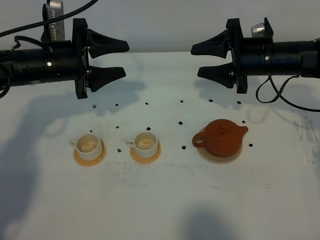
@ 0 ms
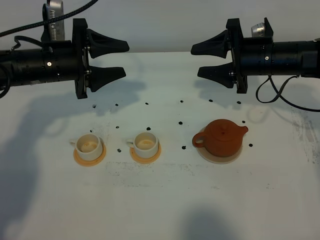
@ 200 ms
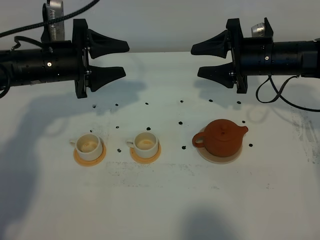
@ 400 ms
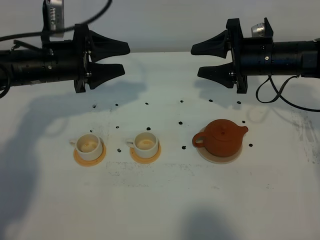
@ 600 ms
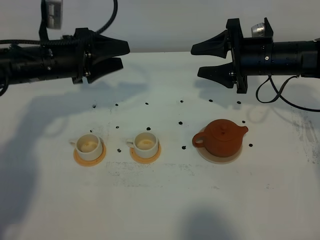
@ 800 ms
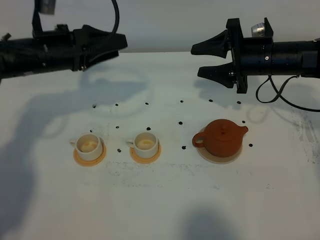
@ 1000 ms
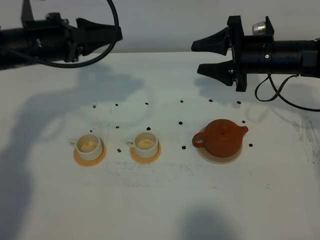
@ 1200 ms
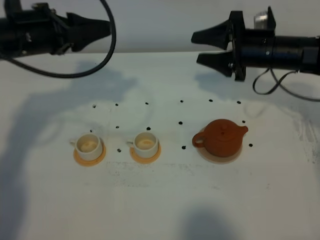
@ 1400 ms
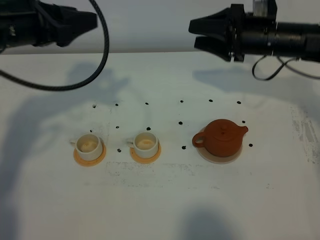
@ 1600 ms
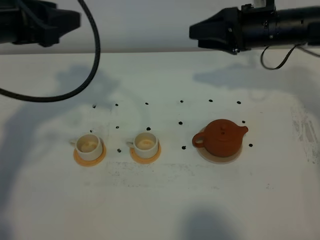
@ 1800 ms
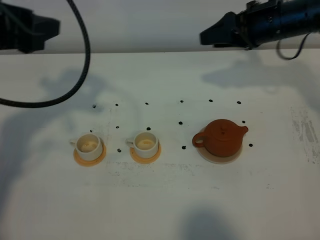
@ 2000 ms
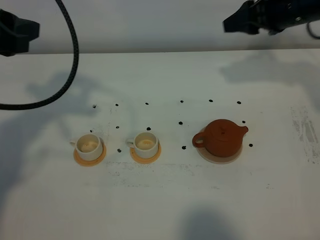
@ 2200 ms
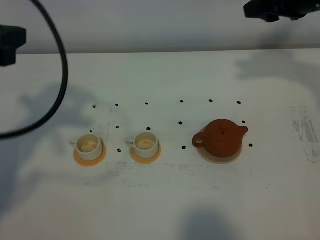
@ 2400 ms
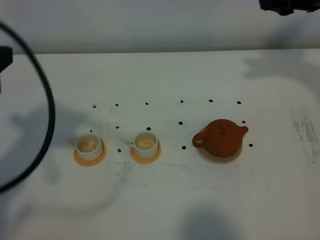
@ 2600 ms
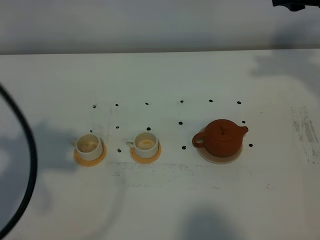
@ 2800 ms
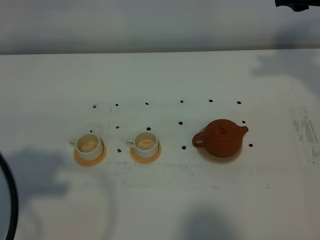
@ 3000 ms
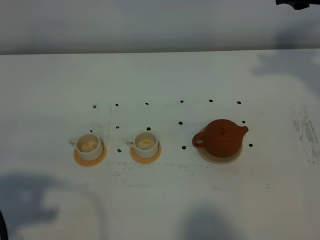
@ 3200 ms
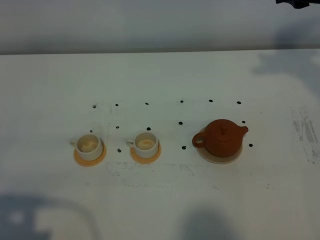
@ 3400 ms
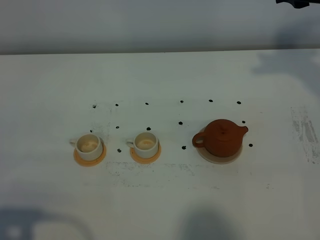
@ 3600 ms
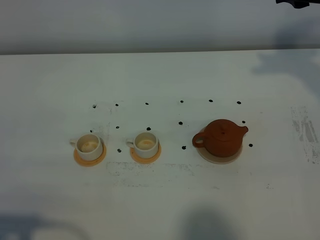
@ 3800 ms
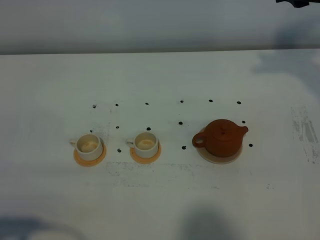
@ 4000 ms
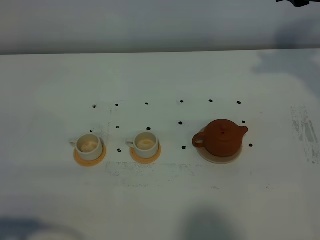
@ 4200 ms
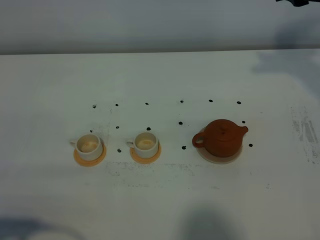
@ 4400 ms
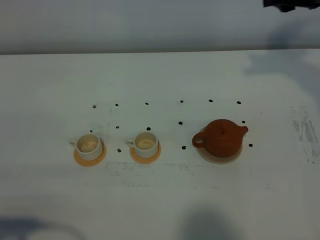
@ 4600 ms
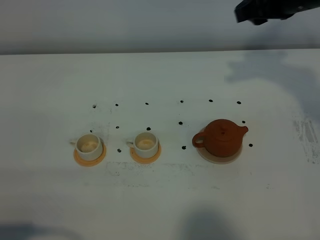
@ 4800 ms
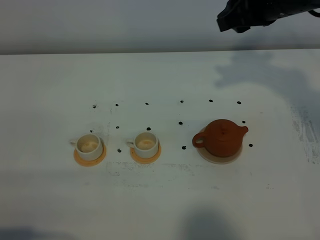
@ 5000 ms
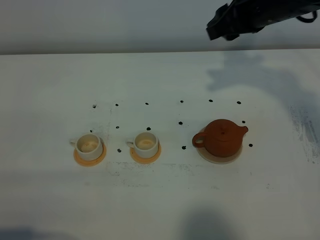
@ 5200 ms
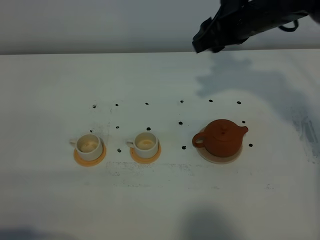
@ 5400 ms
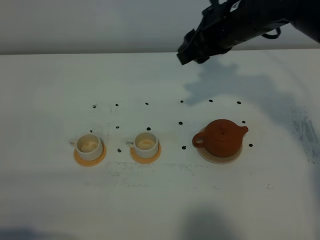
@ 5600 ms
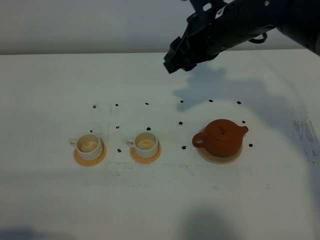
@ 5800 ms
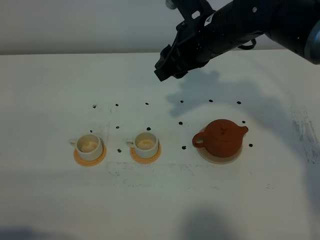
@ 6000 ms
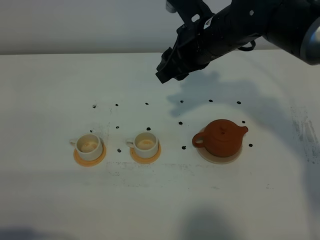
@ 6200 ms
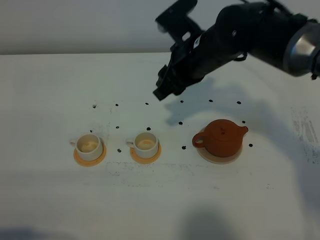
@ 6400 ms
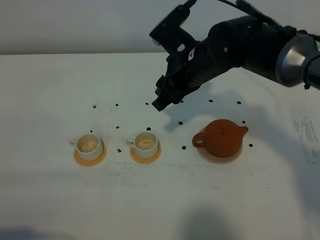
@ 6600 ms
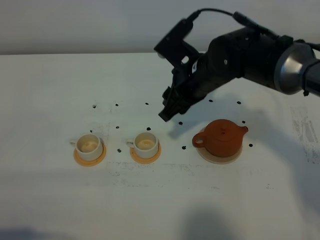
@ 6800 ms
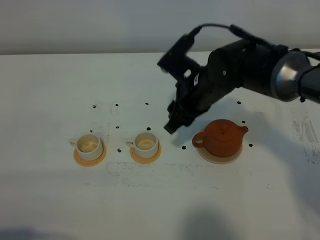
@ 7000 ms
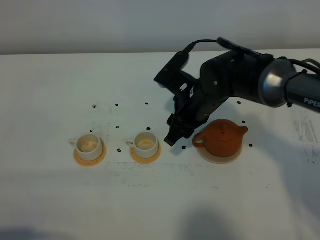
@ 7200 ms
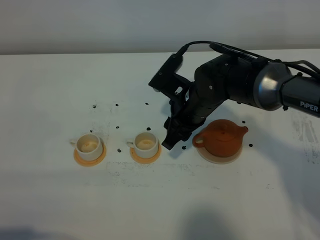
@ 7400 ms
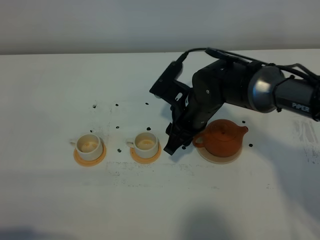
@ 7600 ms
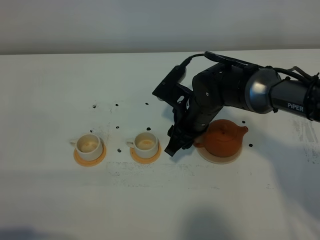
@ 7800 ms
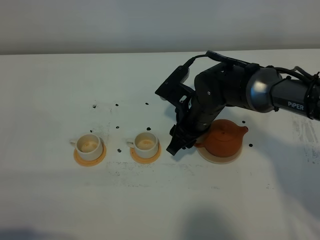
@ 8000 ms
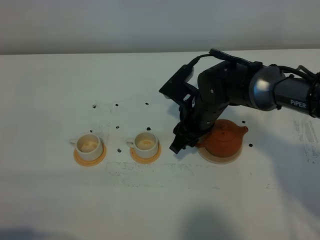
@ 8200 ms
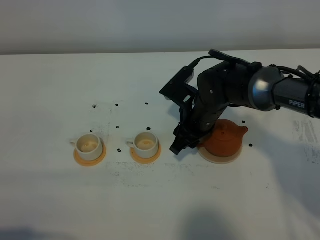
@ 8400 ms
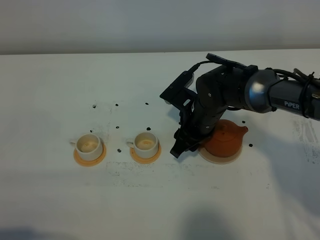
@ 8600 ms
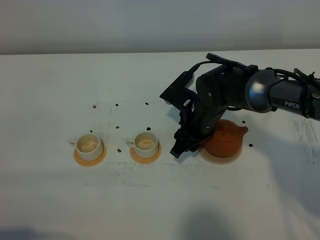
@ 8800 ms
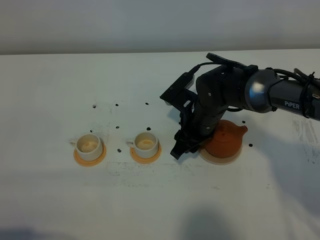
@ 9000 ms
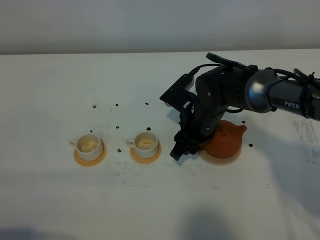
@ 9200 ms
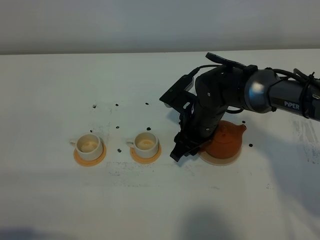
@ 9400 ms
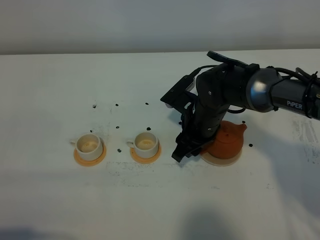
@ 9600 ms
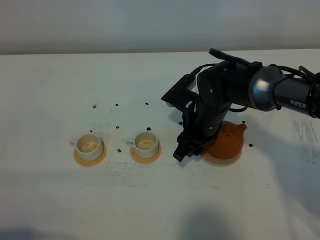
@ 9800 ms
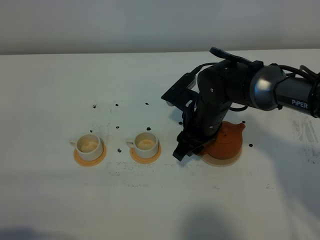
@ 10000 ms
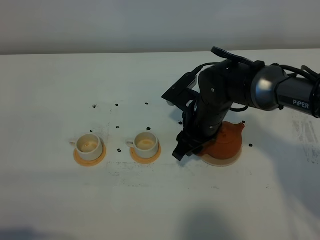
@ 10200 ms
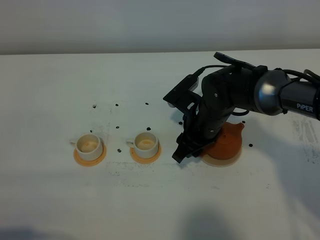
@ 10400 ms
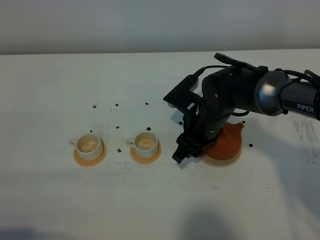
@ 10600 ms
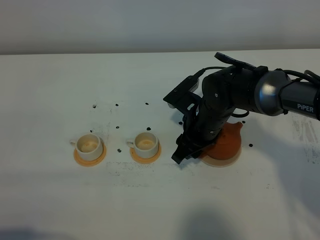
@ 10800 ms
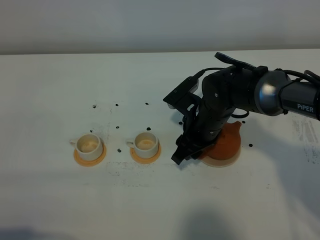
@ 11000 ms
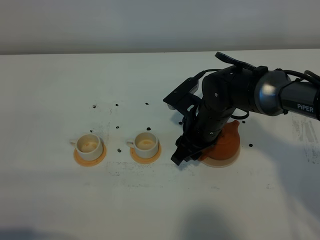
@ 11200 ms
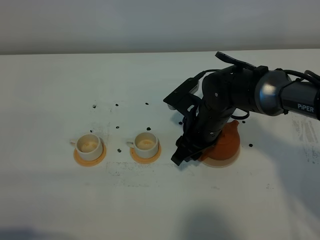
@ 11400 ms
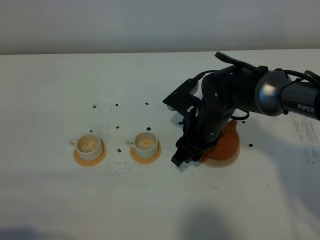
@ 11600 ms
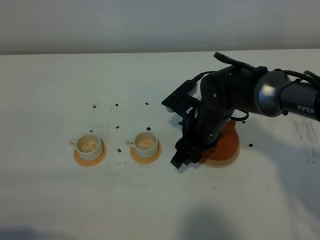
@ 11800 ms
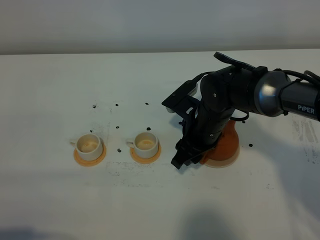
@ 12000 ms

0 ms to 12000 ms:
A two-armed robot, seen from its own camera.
Task of the whole recording: grasp the brown teapot and pour the tea into the two white teacups one by one, put the brown teapot back in its original place.
0 ms to 1600 ms: The left gripper shifts roughly 10 cm upward.
1600 ms to 3000 ms: The left gripper moves backward, roughly 25 cm. Meanwhile the right gripper shifts about 15 cm upward and to the right.
3000 ms to 4400 ms: The left gripper shifts roughly 15 cm downward and backward.
4400 ms to 6000 ms: The right gripper travels to the left and downward by roughly 20 cm.
6000 ms to 7600 ms: The right gripper moves downward, some 15 cm.
7600 ms to 10400 ms: The grippers make only small movements.
10400 ms to 12000 ms: The two grippers keep their place.

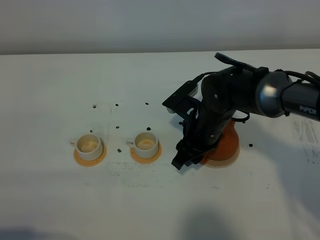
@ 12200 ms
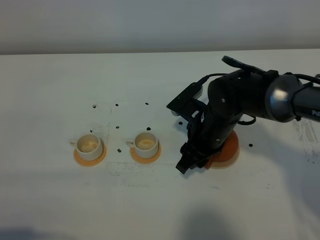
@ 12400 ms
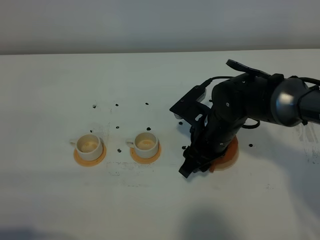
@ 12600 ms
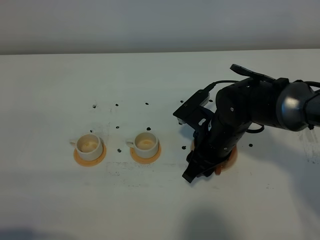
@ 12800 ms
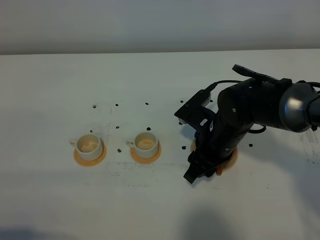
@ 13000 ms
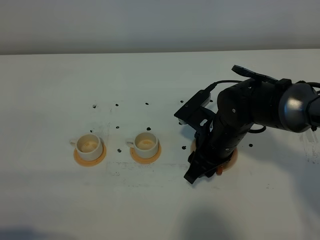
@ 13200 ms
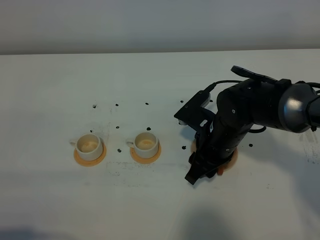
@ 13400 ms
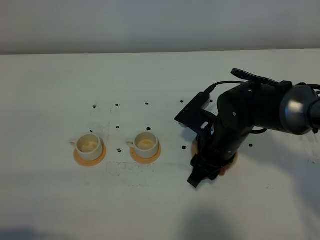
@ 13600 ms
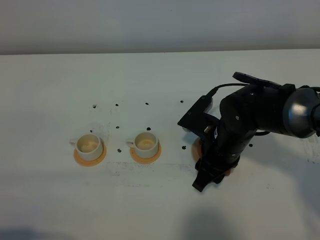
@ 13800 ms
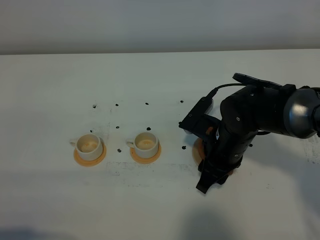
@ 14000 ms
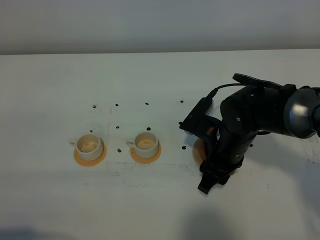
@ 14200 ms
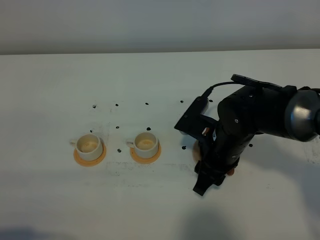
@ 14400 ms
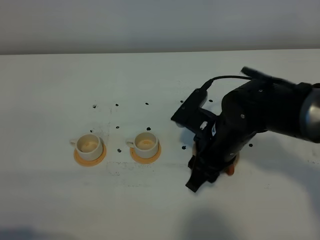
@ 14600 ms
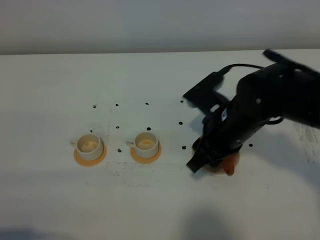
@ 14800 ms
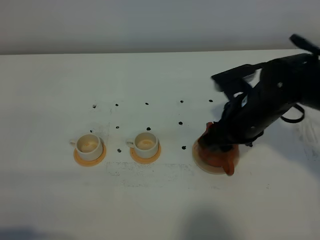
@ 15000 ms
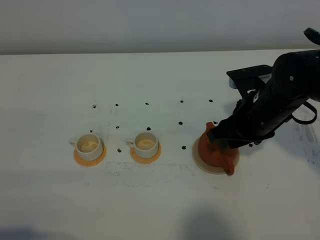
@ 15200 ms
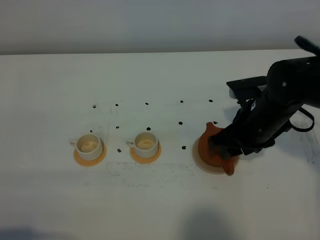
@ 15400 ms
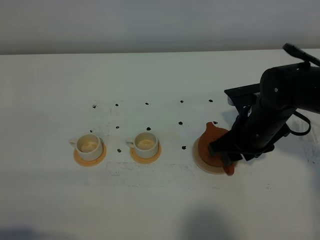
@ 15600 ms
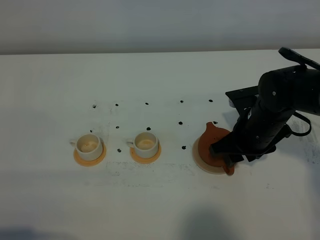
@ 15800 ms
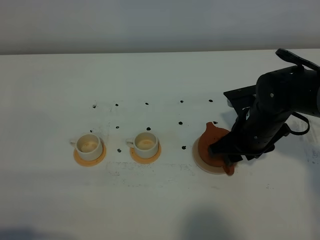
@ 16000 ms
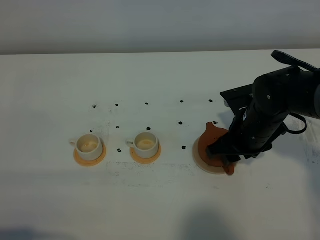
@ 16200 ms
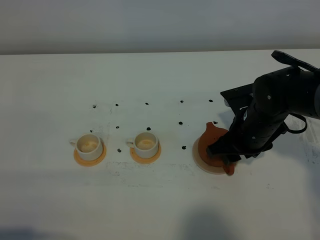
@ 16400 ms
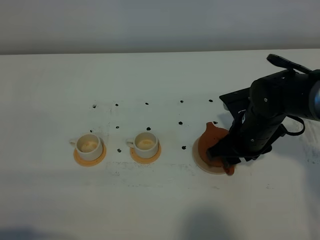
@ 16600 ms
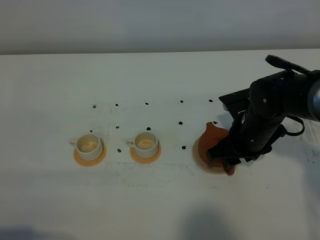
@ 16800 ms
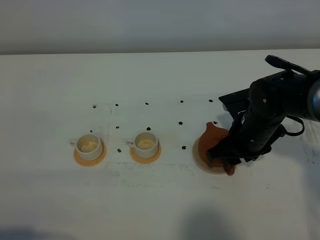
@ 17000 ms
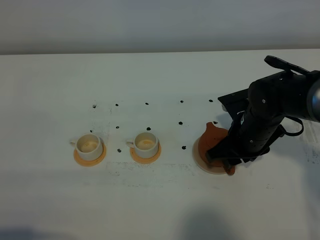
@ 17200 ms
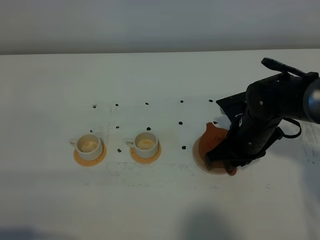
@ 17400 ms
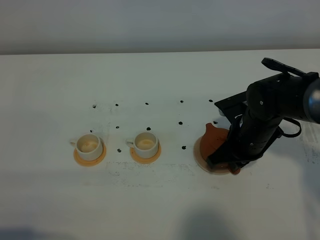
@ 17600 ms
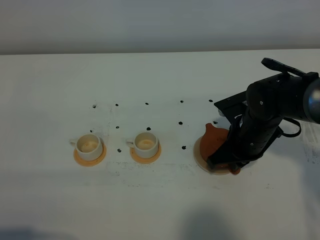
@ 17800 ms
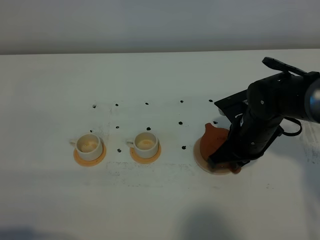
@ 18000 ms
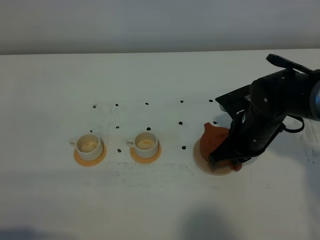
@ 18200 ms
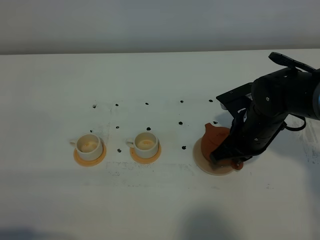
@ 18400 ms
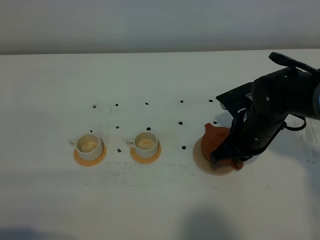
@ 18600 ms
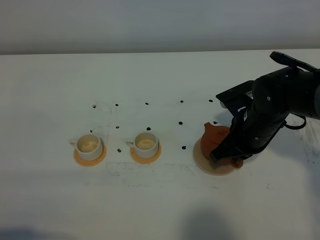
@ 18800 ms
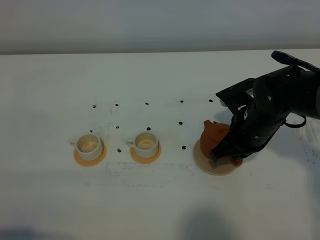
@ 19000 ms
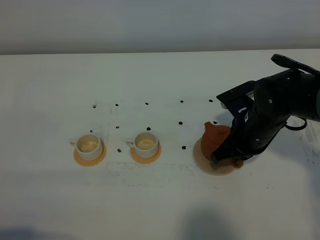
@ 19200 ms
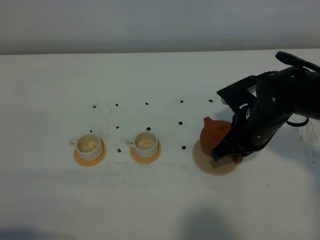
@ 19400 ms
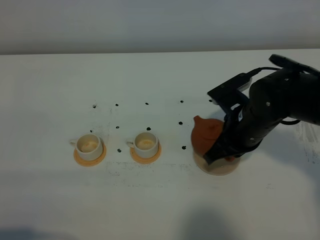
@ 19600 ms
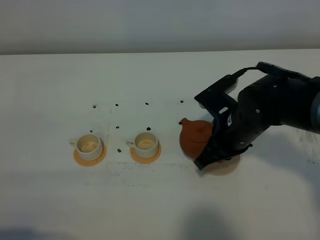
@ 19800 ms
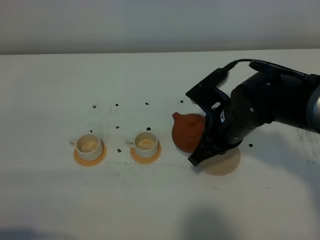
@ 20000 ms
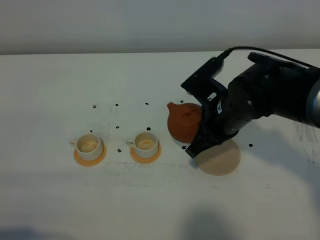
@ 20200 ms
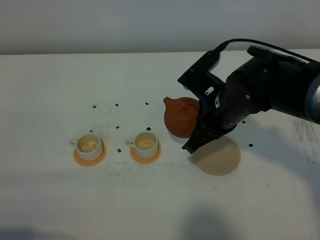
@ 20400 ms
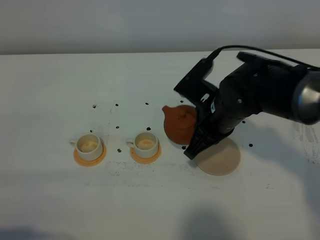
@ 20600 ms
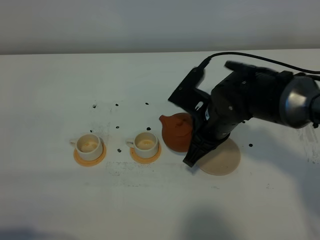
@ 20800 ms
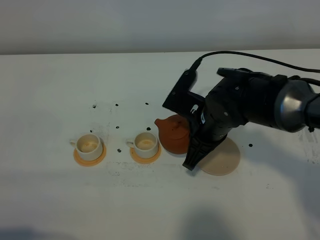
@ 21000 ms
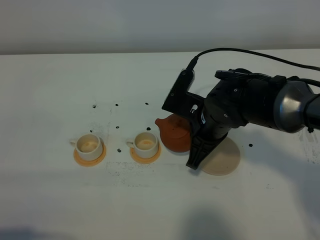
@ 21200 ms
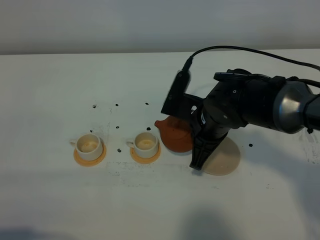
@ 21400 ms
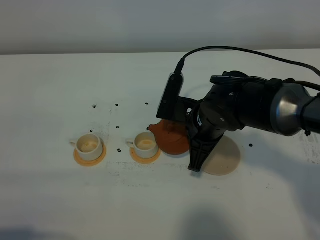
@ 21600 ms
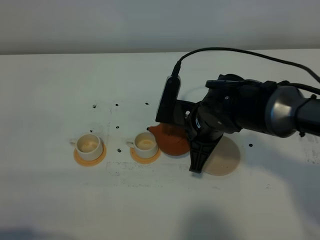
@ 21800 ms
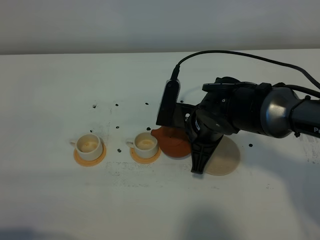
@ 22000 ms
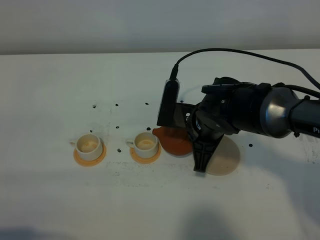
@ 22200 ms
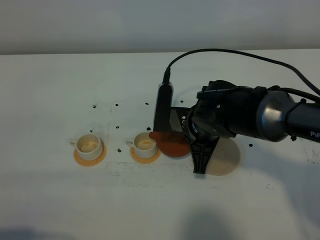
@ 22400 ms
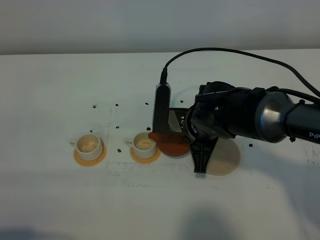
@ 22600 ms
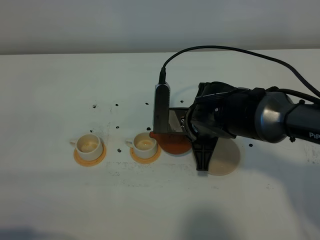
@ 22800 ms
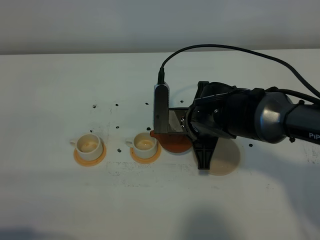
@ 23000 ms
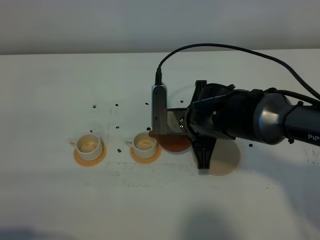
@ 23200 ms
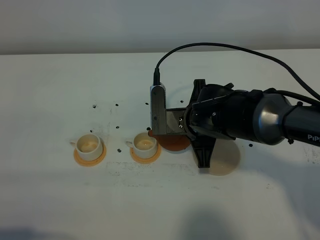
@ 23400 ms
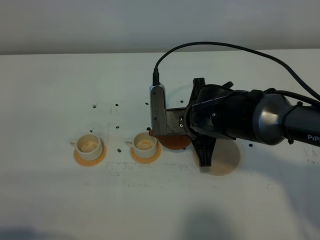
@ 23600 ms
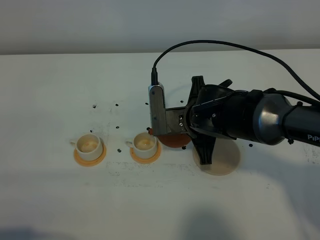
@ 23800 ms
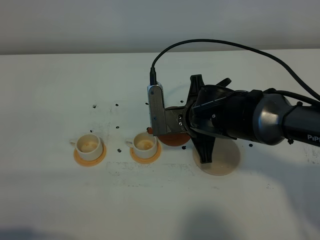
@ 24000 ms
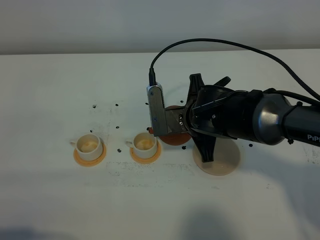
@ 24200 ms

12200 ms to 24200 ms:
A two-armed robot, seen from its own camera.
Task of the whole recording: grasp the brown teapot and pour the tea into the two white teacups one by one, put the brown teapot back in its original place.
Step, 12200 ms to 19000 ms: Pick up the teapot with the right gripper.
12200 ms to 13800 ms: The grippers move only a little.
13800 ms to 15200 ms: The right gripper goes roughly 10 cm upward and to the right.
15200 ms to 16600 ms: The right gripper travels downward by about 5 cm.
16600 ms to 18200 ms: The right gripper closes its fingers.
18200 ms to 19800 ms: There are only small adjustments of the grippers.
22600 ms to 24200 ms: The grippers make only small movements.
